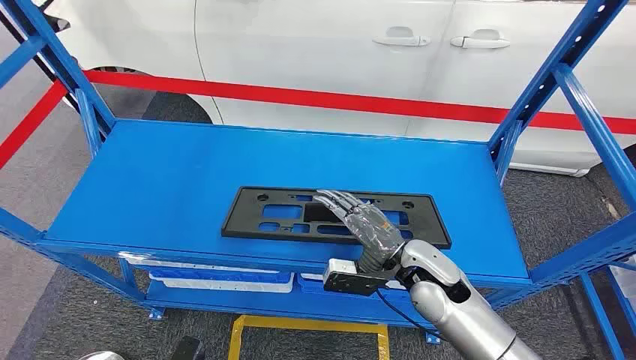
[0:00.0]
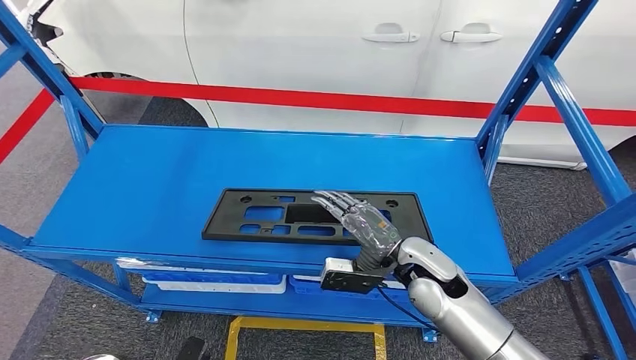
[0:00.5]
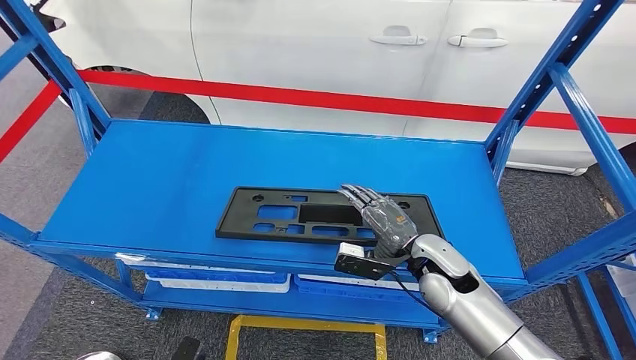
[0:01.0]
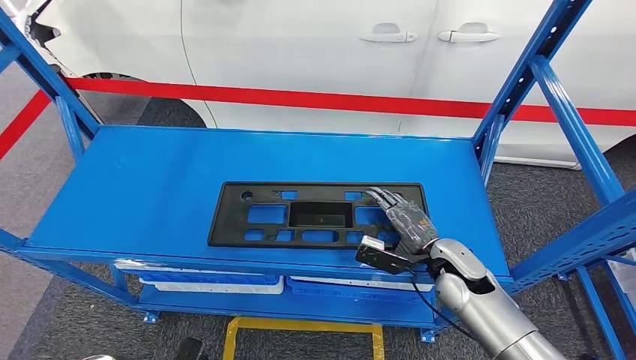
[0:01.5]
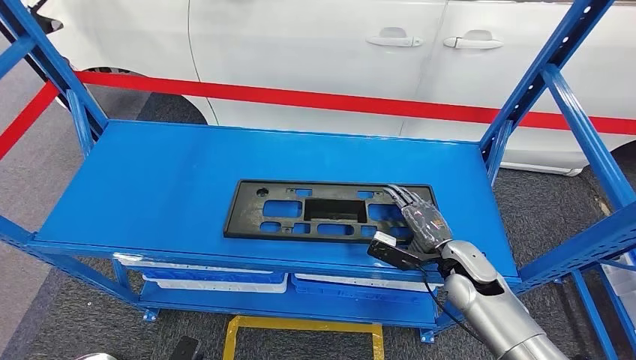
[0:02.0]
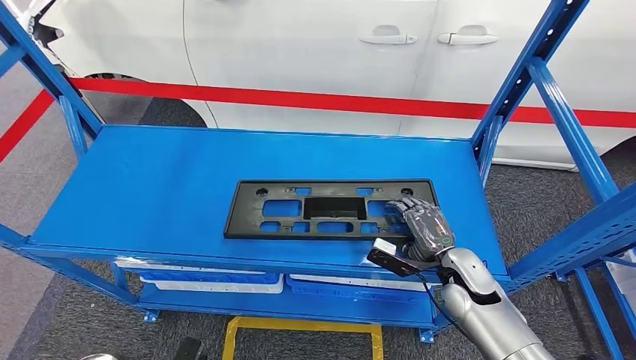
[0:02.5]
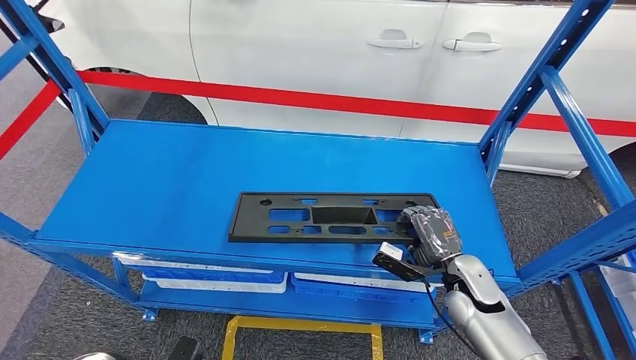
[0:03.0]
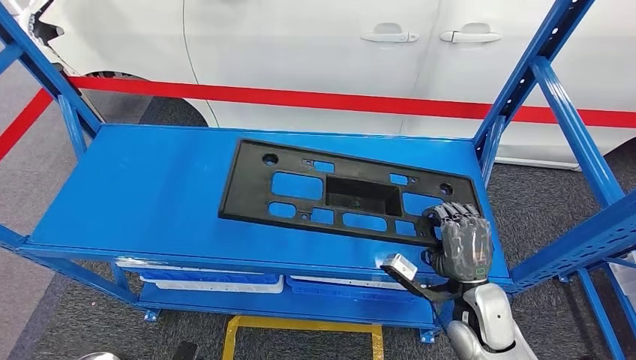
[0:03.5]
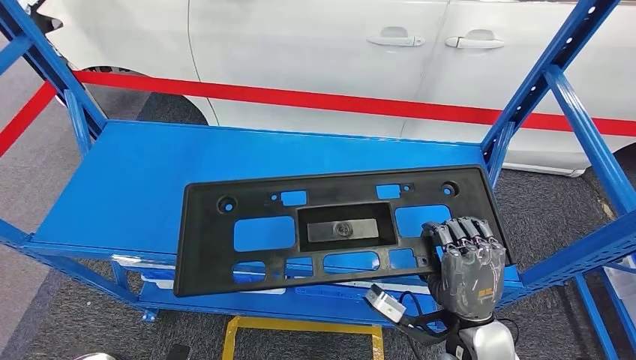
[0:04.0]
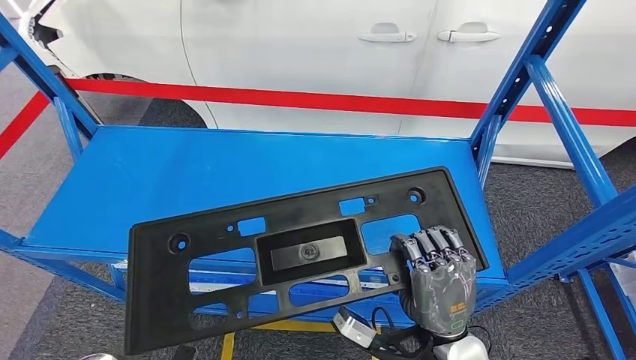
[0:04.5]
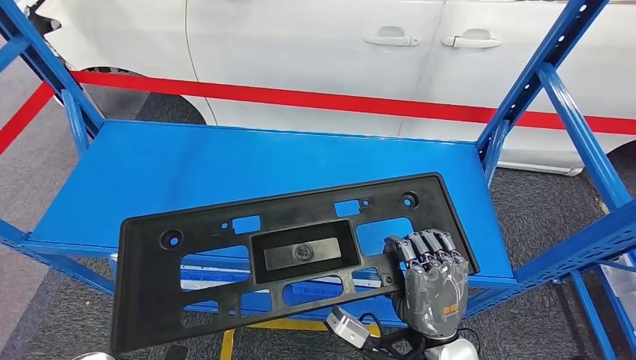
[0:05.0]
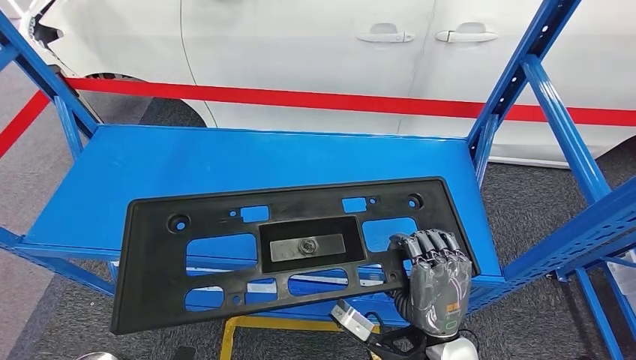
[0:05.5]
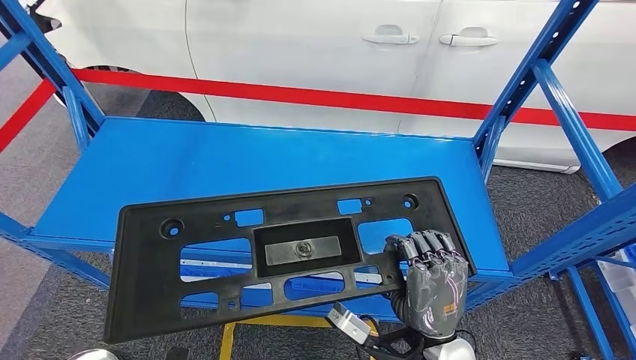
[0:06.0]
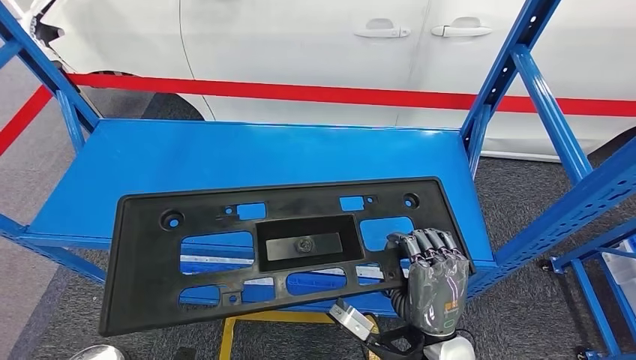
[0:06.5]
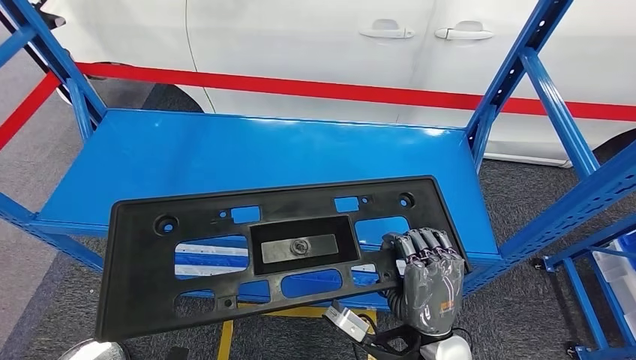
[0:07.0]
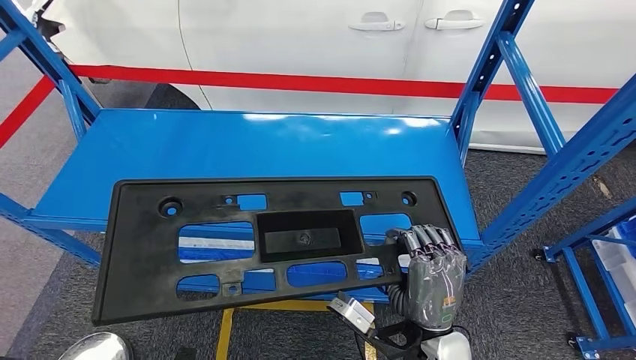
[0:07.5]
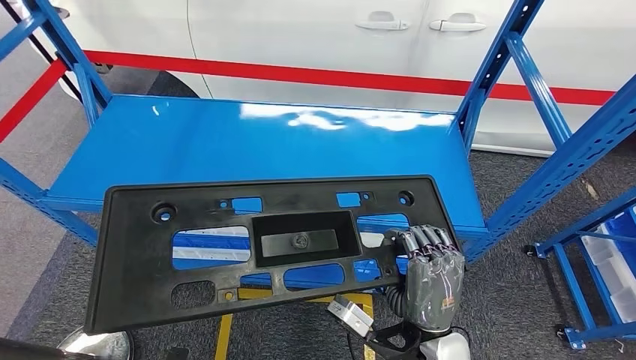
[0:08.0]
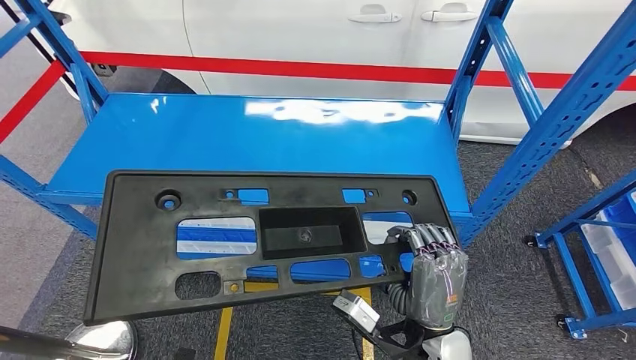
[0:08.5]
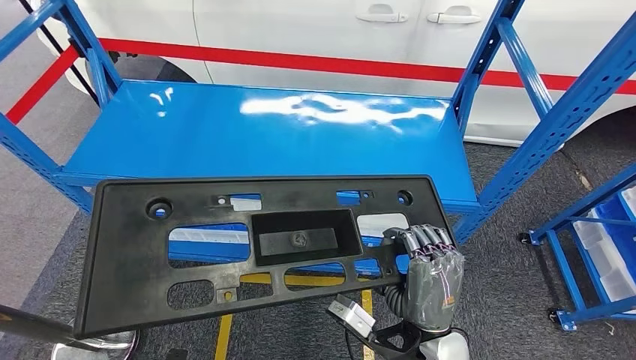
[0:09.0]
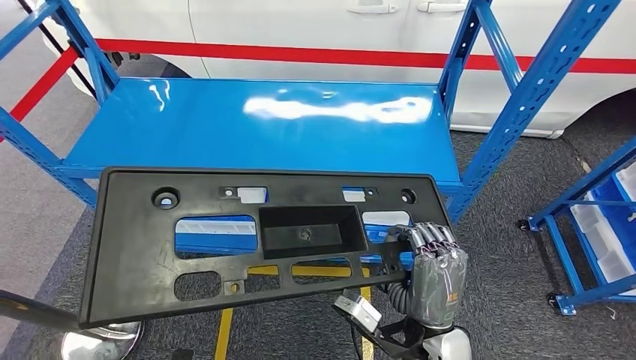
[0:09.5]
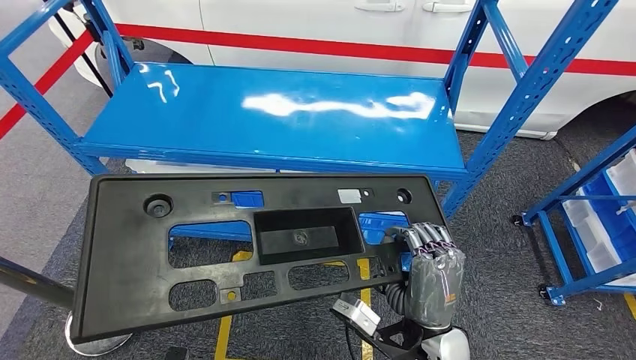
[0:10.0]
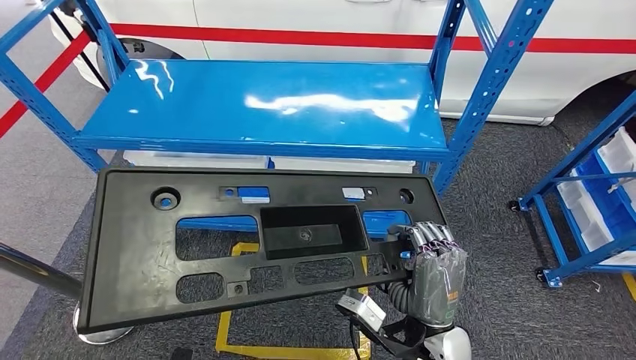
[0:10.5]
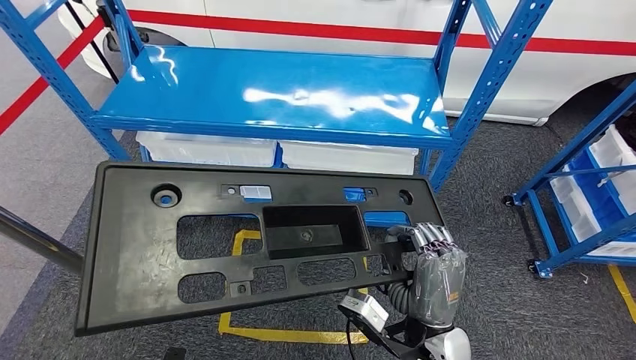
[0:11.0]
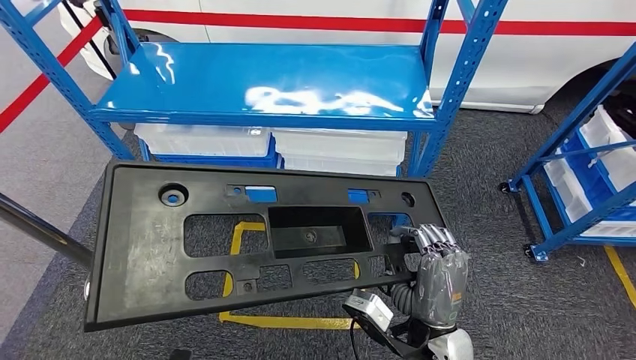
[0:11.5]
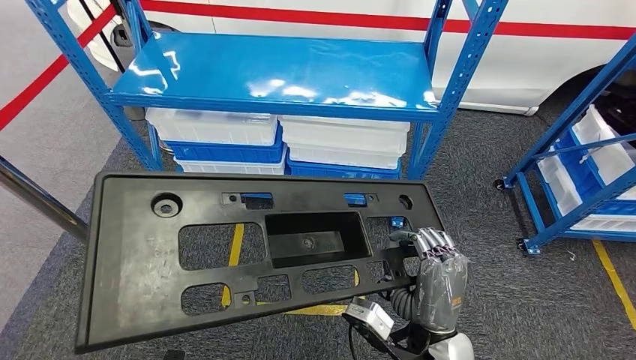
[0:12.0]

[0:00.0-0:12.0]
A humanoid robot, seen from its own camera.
Step, 0:00.0 to 0:06.5: Pick up the large material from the shelf.
0:02.0 to 0:04.0: The right hand is displaced backward and to the left by about 15 cm.

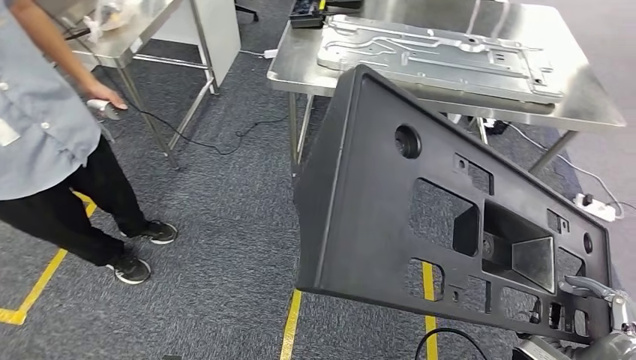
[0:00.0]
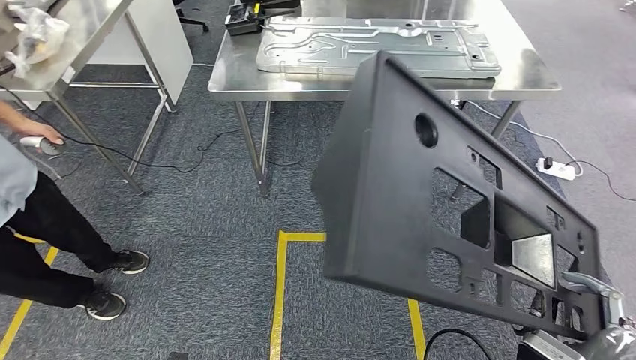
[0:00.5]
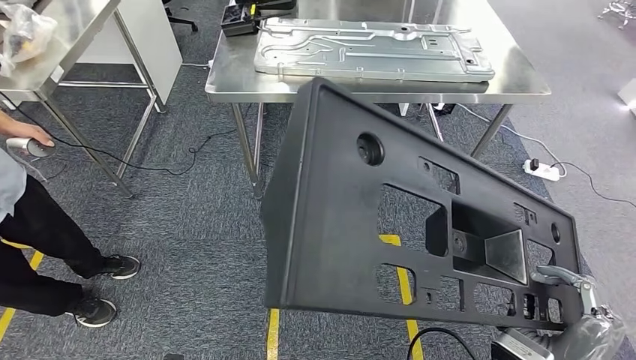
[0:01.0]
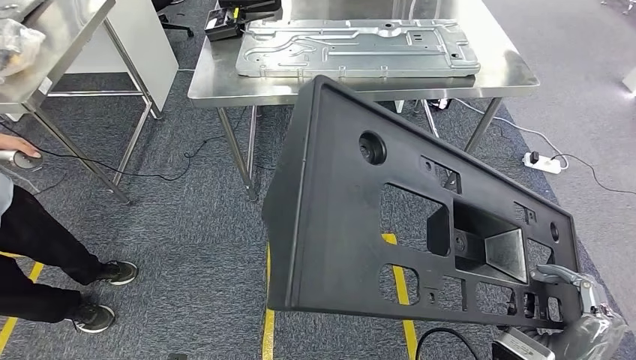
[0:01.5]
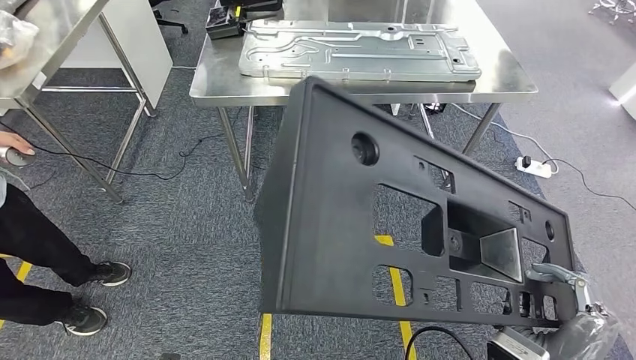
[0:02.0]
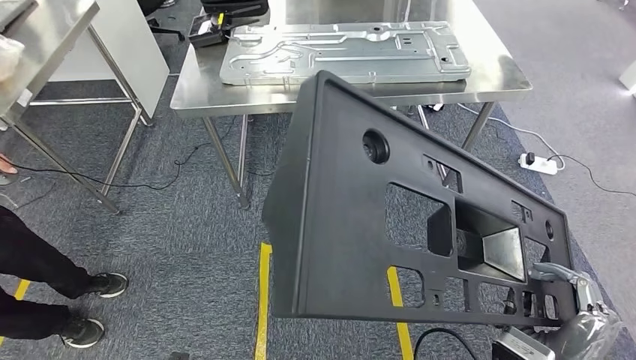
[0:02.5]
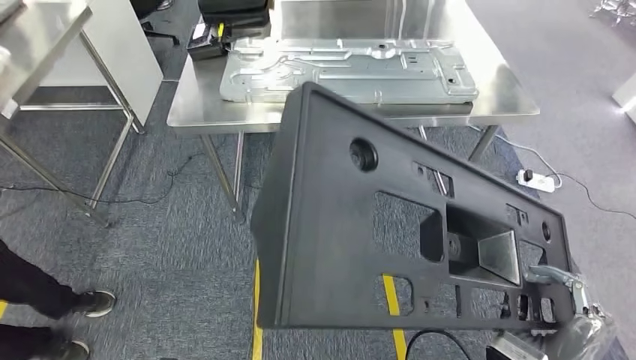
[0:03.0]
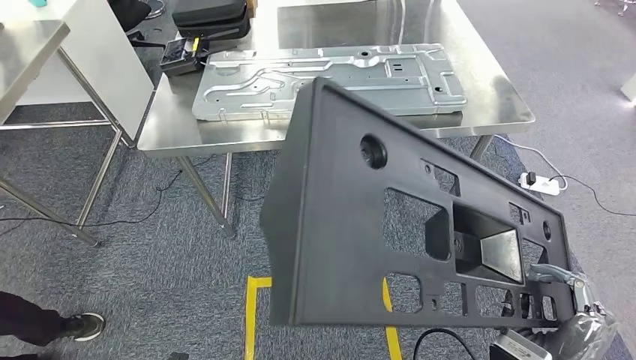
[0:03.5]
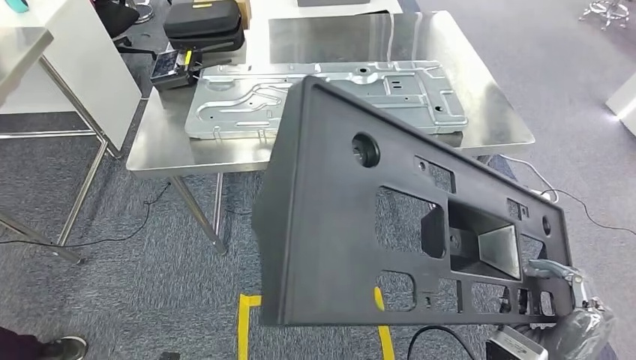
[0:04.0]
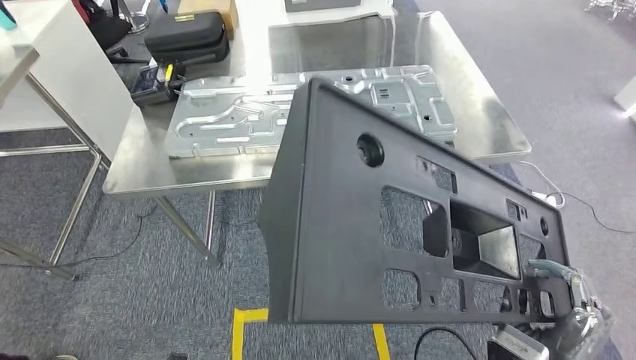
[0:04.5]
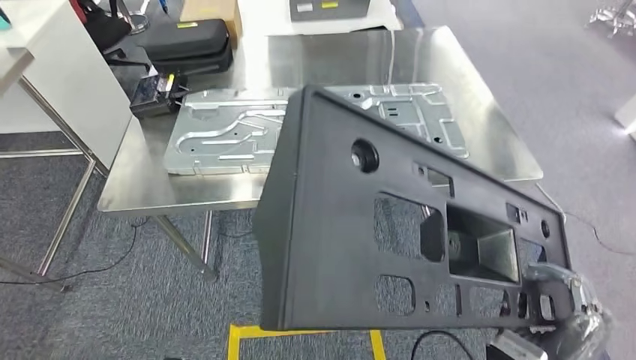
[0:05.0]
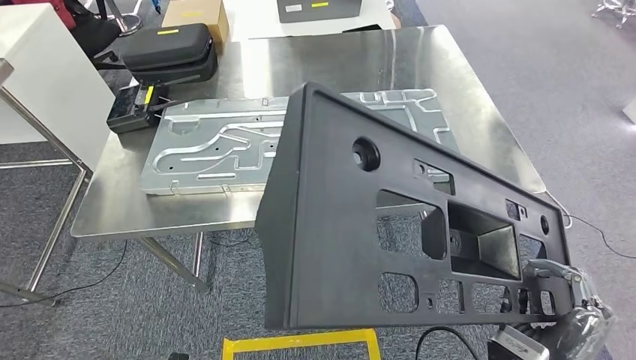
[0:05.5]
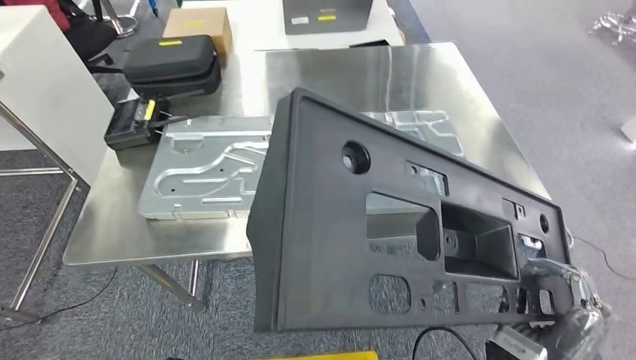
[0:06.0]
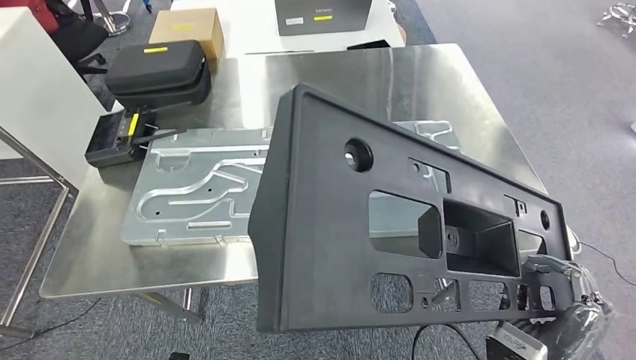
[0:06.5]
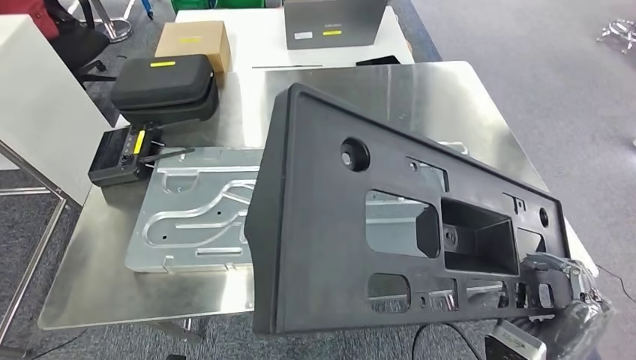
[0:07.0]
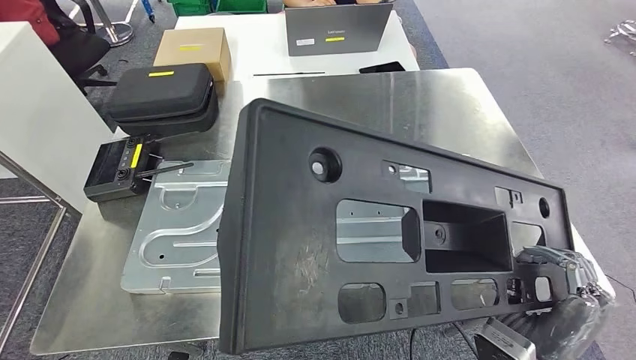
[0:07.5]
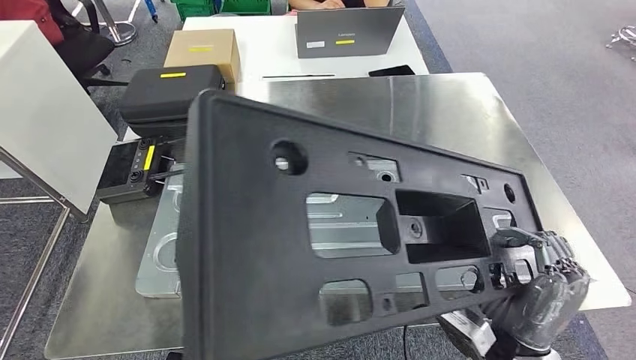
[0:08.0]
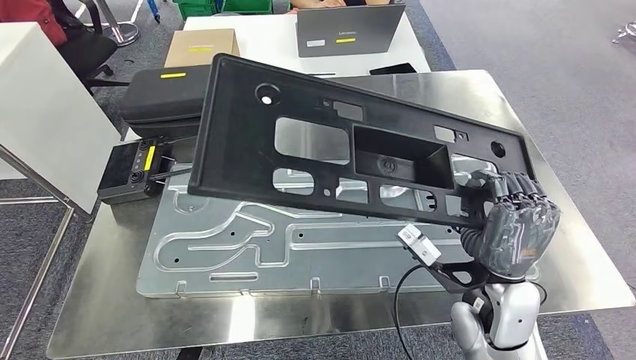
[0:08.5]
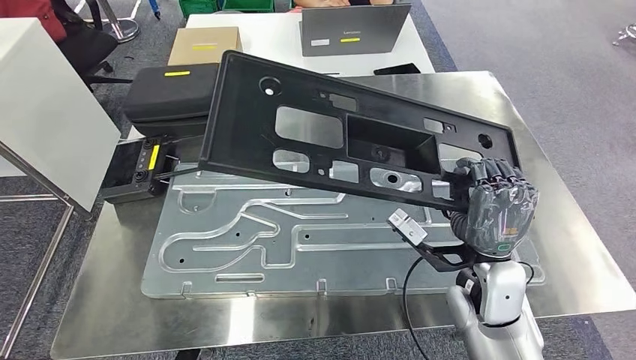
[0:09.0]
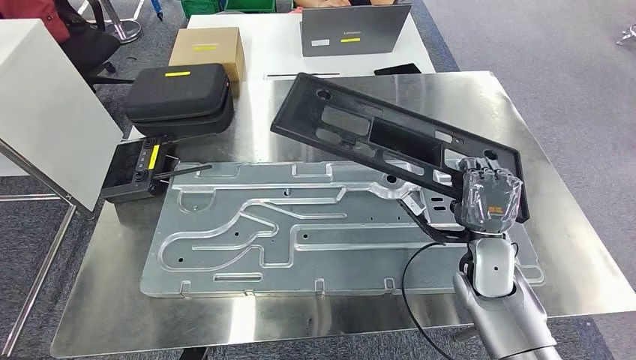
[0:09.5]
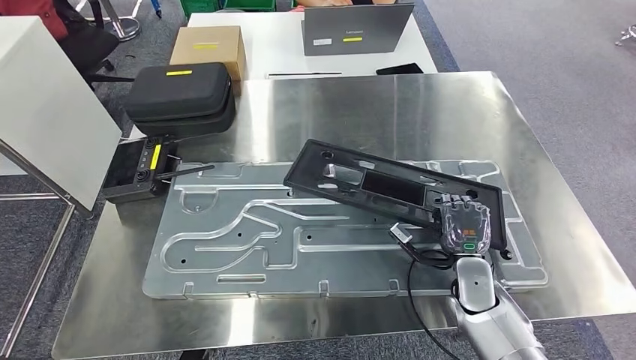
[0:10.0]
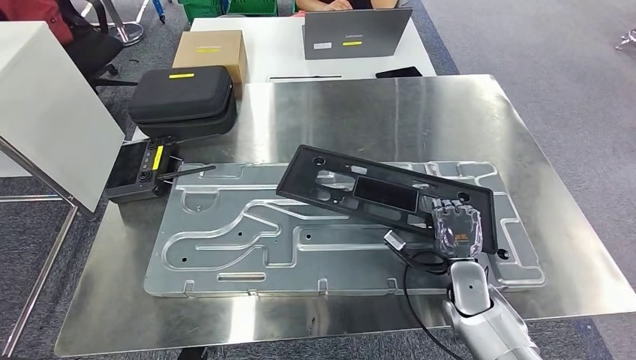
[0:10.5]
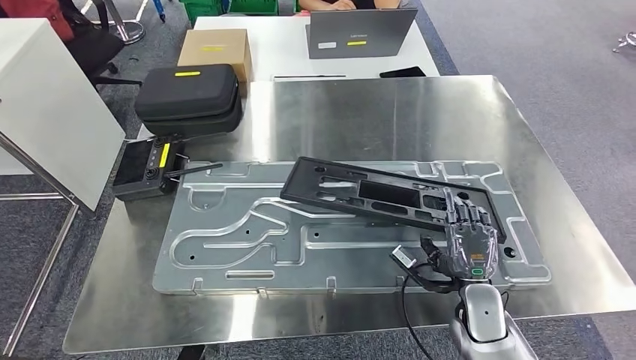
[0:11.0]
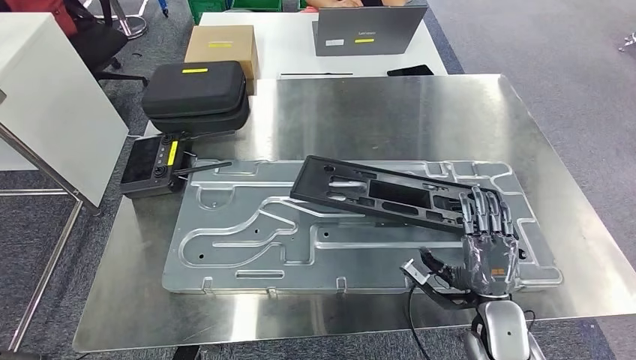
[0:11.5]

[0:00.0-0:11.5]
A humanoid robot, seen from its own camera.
Step, 0:00.0 to 0:05.0: Move the large material to the workbench.
